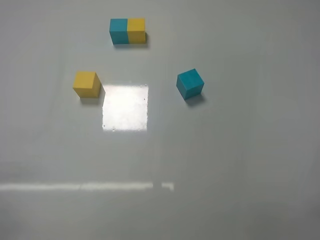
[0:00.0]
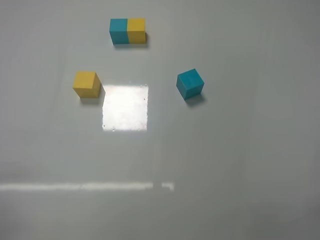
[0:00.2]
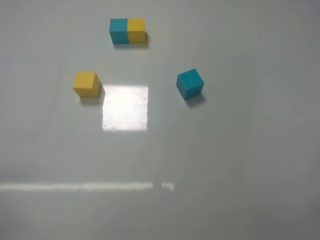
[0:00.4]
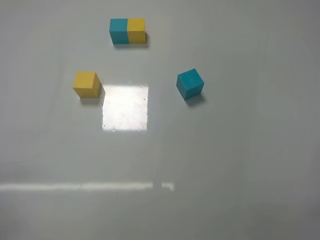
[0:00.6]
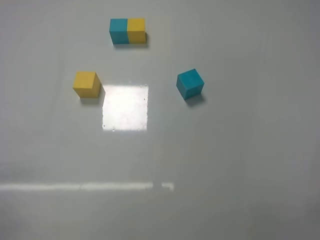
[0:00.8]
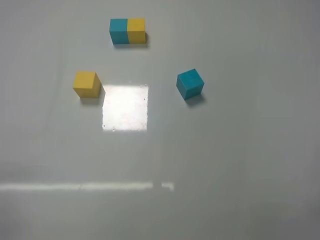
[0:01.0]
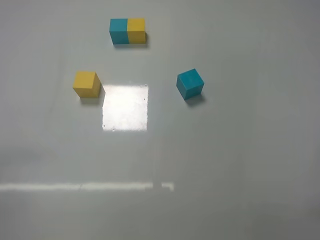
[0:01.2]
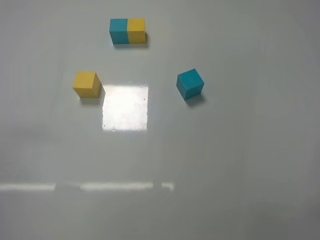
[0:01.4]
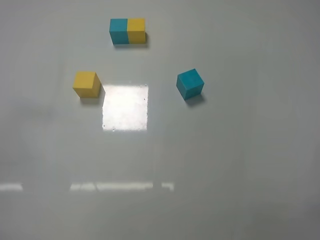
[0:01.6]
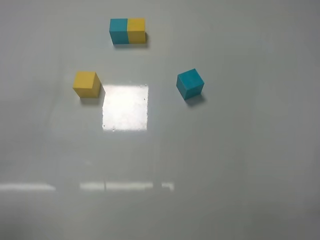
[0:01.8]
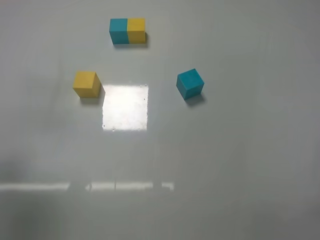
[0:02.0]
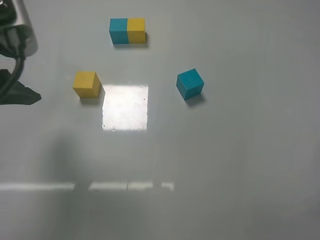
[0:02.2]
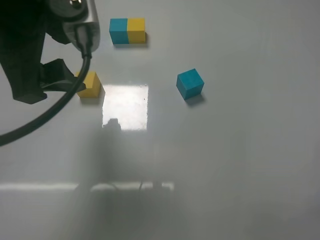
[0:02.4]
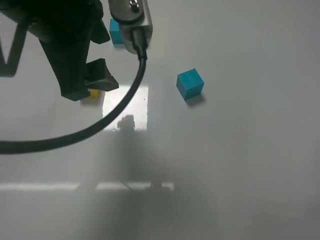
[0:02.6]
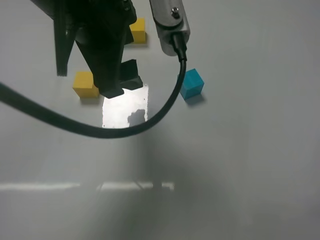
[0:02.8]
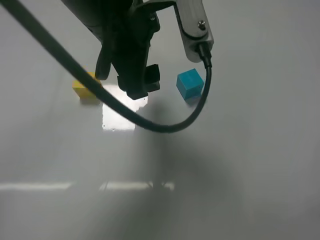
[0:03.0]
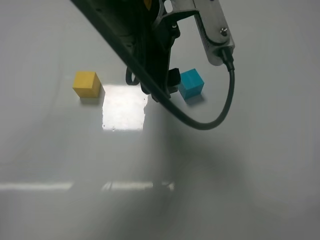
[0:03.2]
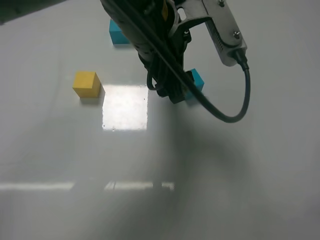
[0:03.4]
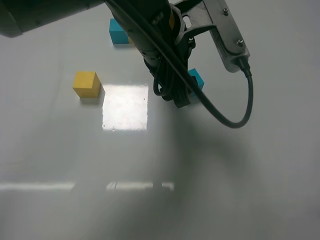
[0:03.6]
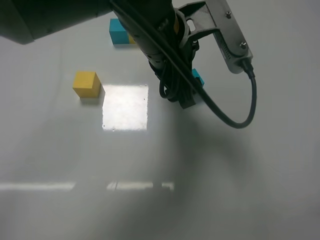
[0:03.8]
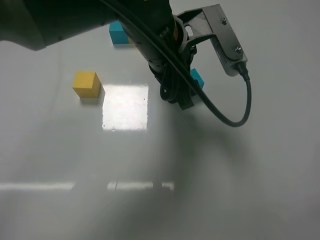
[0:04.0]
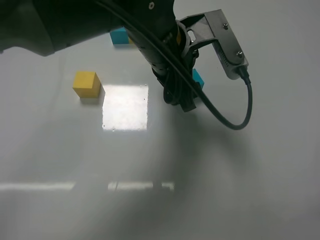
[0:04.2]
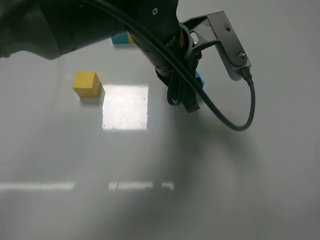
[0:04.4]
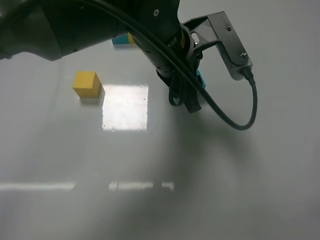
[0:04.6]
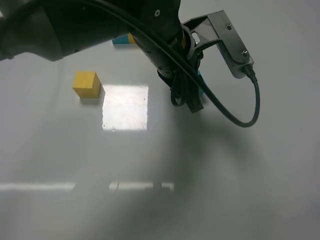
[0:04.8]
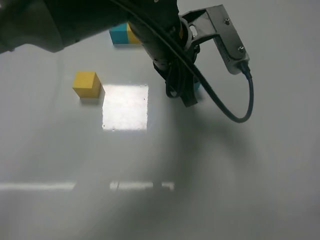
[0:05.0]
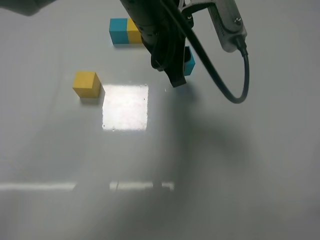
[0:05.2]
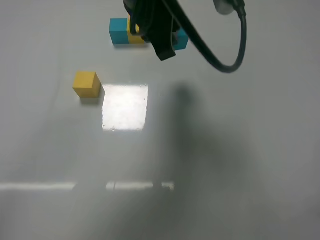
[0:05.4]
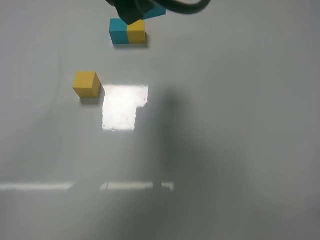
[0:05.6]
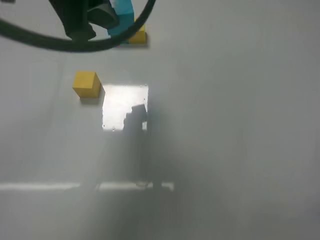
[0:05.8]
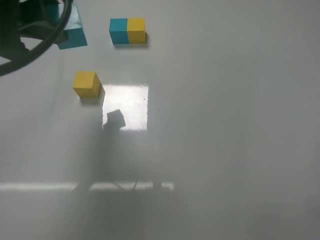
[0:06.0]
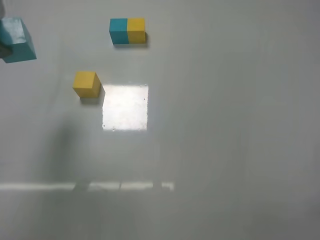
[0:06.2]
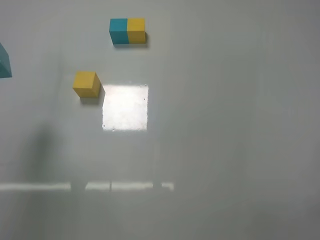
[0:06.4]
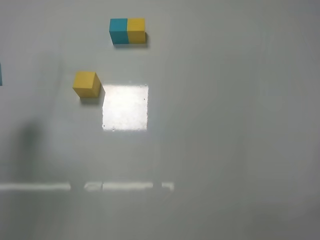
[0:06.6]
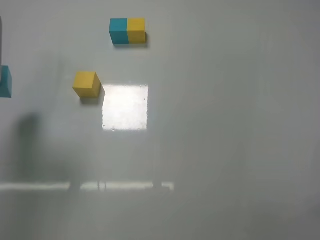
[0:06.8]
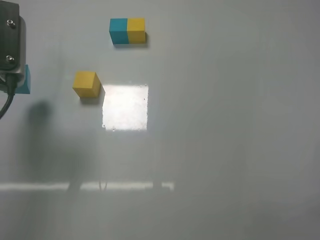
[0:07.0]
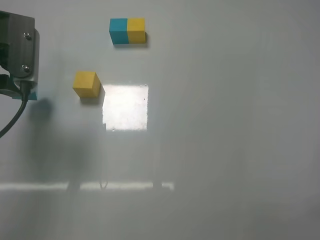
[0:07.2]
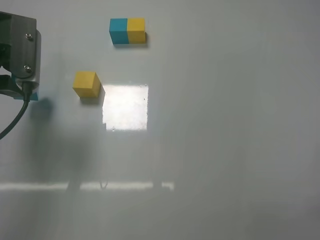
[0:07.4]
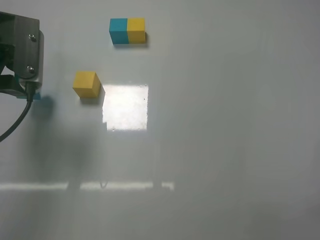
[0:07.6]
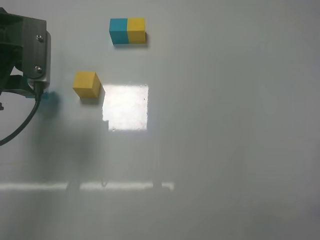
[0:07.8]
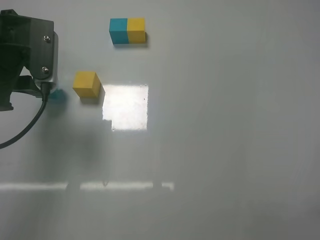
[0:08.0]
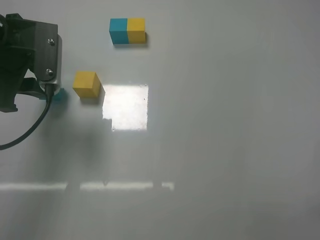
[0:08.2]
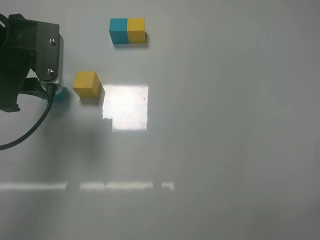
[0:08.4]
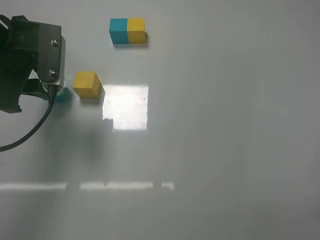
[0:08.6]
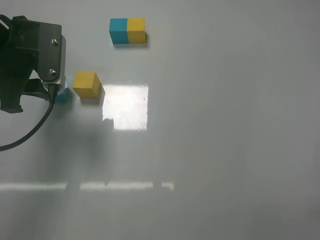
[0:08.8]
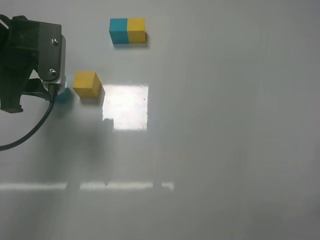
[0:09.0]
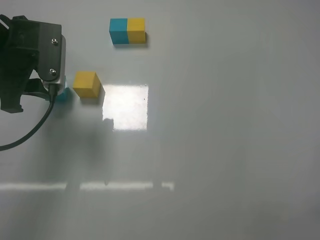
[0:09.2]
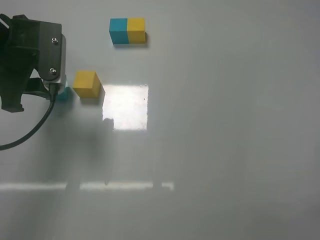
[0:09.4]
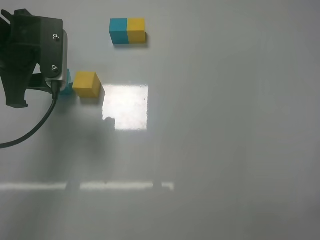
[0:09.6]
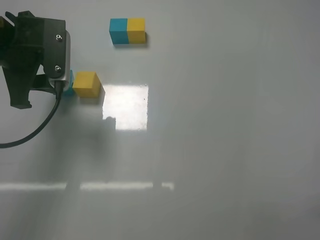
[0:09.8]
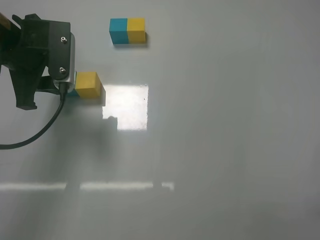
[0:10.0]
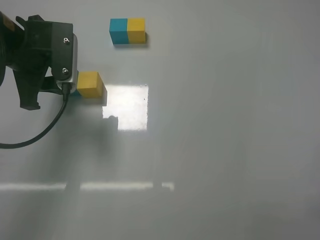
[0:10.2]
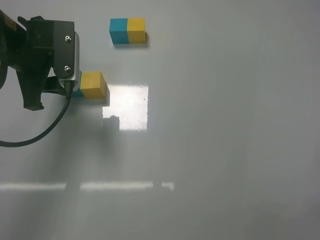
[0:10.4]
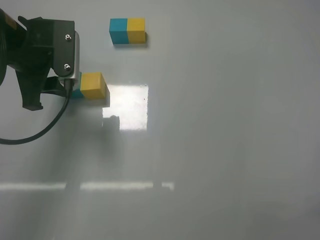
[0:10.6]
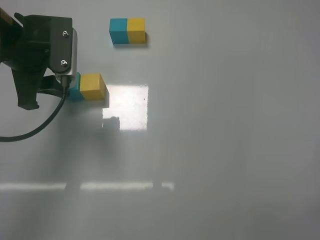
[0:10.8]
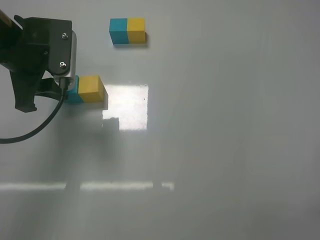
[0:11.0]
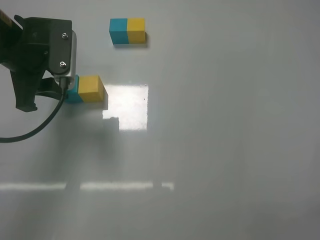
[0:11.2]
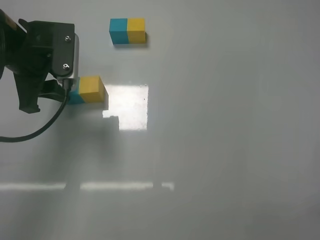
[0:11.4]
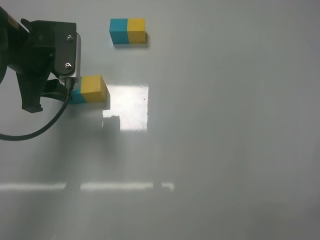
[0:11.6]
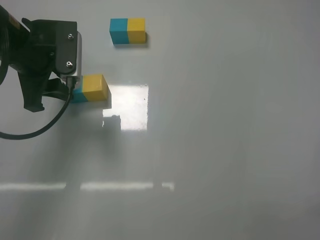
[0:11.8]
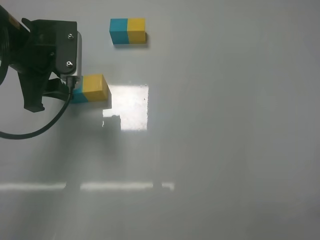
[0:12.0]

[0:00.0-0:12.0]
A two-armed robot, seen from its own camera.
Task of the whole recording: According to the building block template in front, assemble the scattered blocks together.
Step, 0:00.0 to 0:04.6: Grasp the blue block with left gripper.
0:01.6 to 0:03.0: The left gripper heads to the right and forward, covering roughly 35 cm.
0:03.0 to 0:04.4: The left gripper travels to the right, forward and downward by roughly 10 cm, and closes up.
0:04.4 to 0:06.0: The left gripper travels to the left, upward and backward by roughly 25 cm.
0:06.0 to 0:07.6: The left gripper is displaced forward, downward and to the left by some 15 cm.
0:07.6 to 0:12.0: The grippers move only a little.

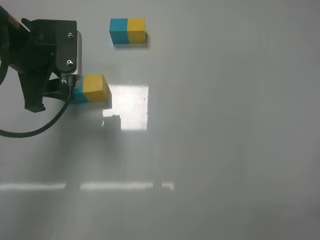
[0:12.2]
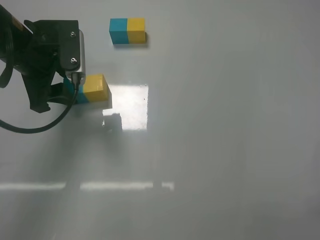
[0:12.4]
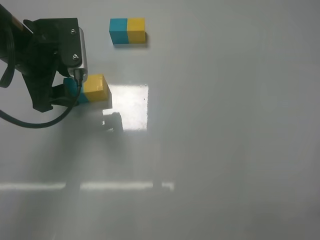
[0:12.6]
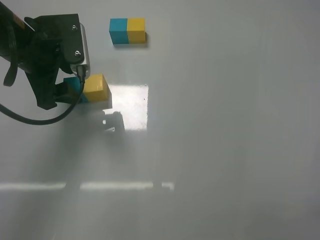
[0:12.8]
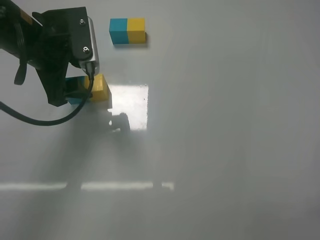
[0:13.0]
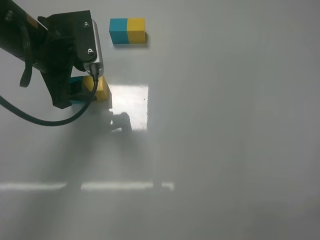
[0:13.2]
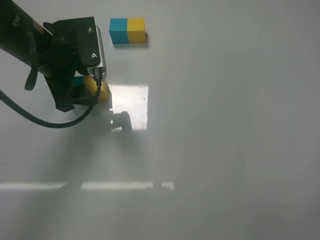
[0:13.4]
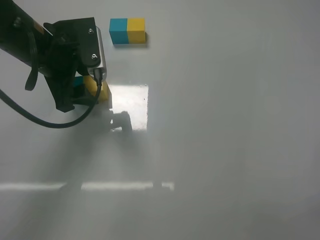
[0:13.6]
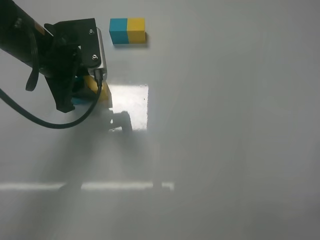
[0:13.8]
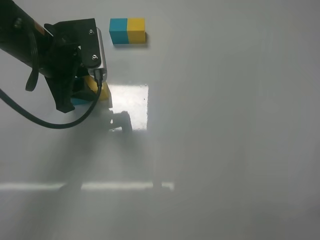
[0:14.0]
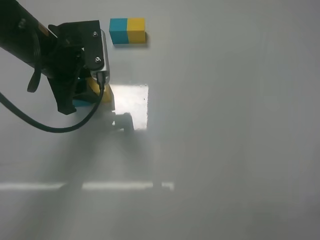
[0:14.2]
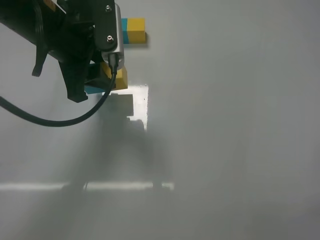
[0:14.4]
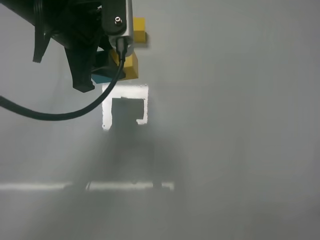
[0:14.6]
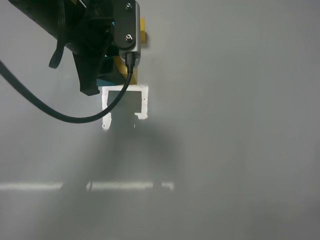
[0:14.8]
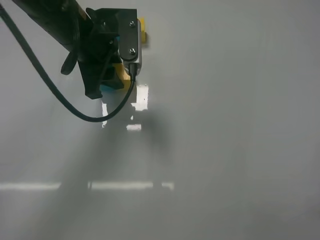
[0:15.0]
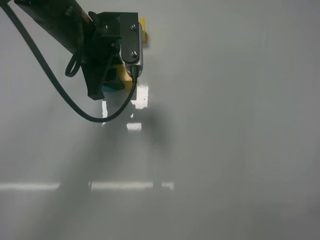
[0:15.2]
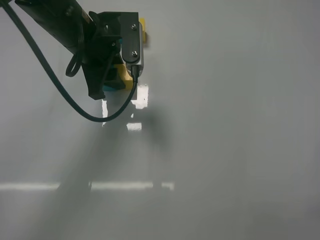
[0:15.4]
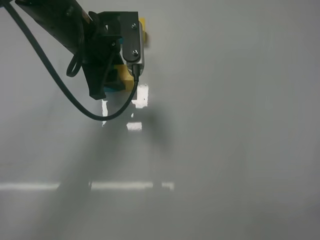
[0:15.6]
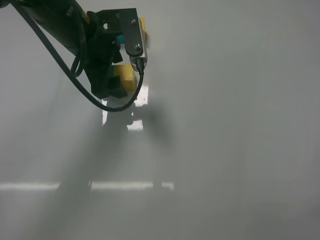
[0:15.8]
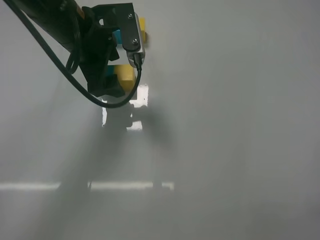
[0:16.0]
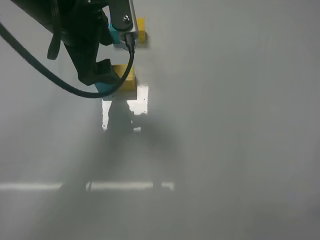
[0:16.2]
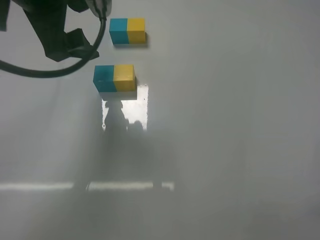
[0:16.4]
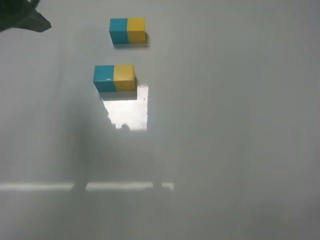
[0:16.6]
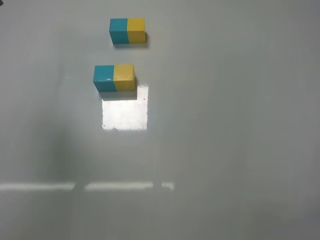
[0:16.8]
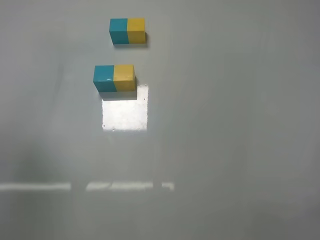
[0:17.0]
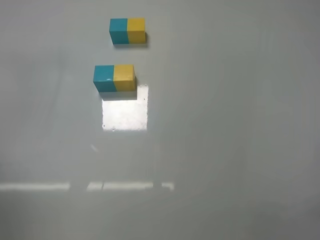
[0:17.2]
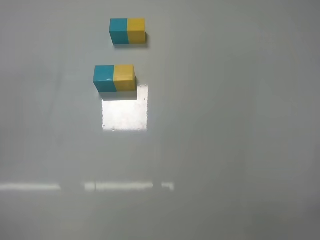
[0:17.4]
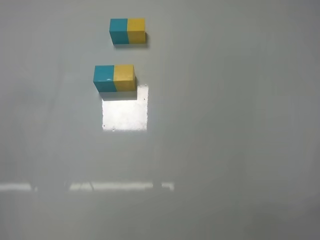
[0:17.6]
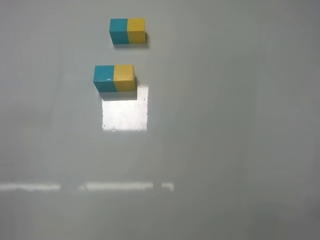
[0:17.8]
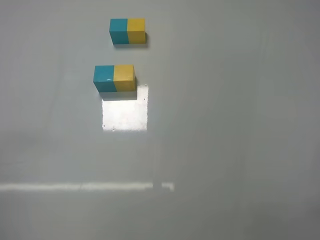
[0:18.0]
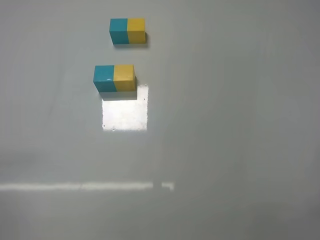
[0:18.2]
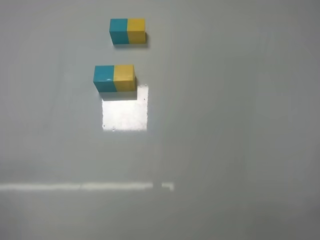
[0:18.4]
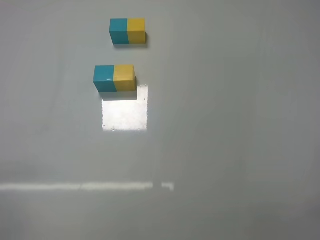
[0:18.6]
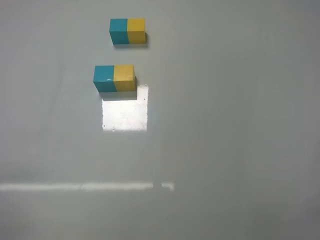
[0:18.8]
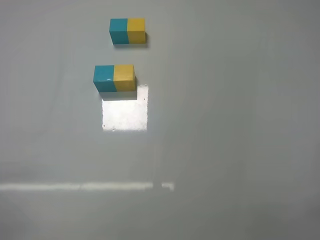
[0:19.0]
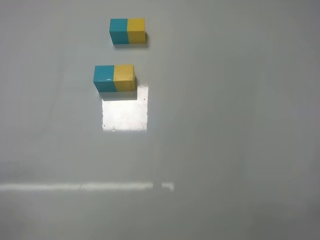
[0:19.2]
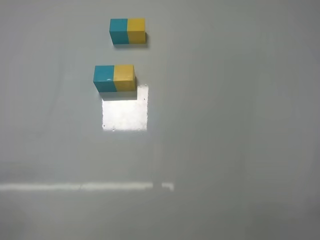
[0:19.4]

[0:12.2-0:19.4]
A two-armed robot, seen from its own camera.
Task of the whole recording: According to the building block template in front, assemble the scattered blocks together.
Step, 0:12.8 to 0:15.8: Put the yellow cube and blue cube in the center of the table with the left gripper.
0:12.2 to 0:13.6: The left gripper opens its fingers.
0:13.6 to 0:15.0: The left gripper moves to the right, some 5 cm, and closes up.
0:15.0 to 0:16.6: The left gripper moves upward, backward and to the left, about 20 cm, and opens its fingers.
0:16.6 to 0:18.0: The left gripper is displaced backward, downward and to the left by roughly 30 cm.

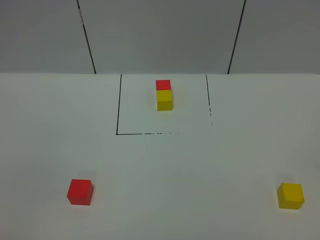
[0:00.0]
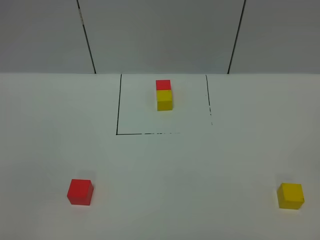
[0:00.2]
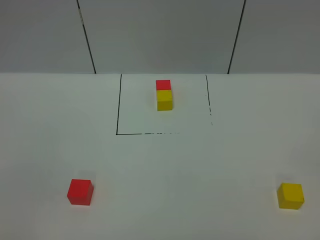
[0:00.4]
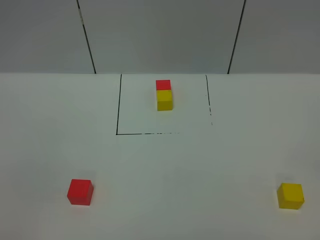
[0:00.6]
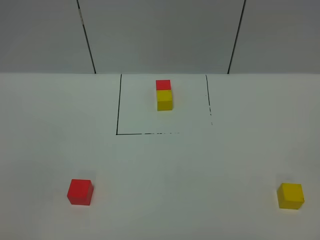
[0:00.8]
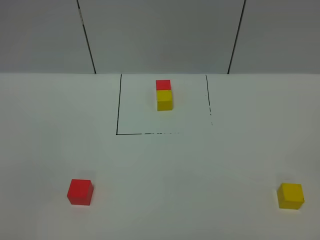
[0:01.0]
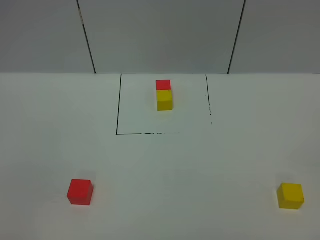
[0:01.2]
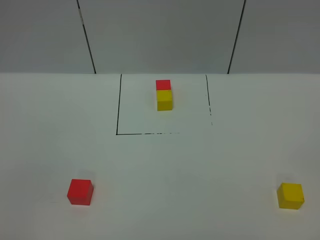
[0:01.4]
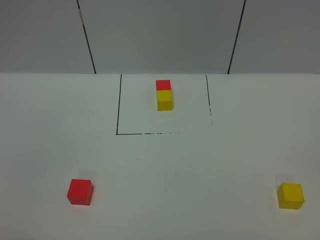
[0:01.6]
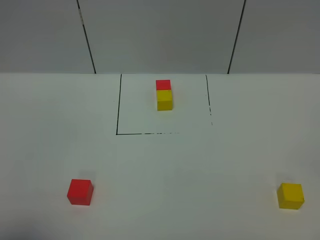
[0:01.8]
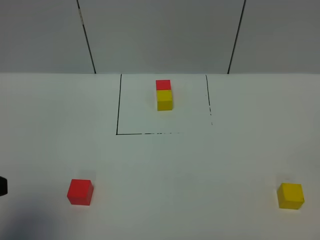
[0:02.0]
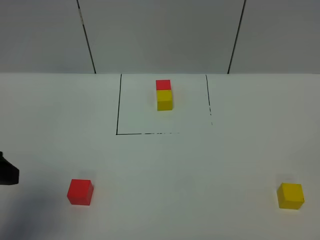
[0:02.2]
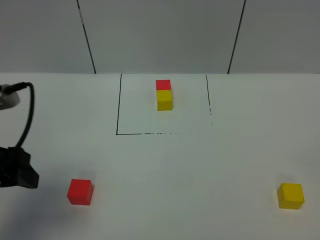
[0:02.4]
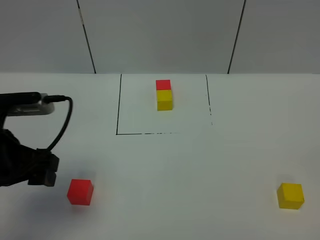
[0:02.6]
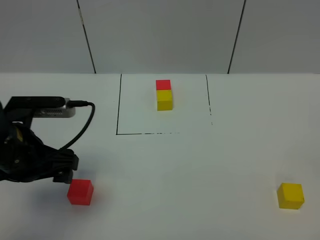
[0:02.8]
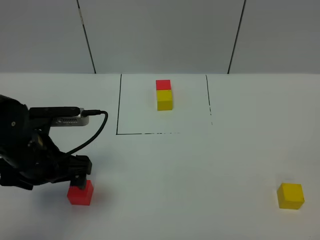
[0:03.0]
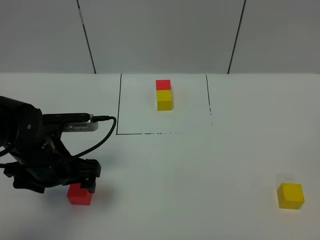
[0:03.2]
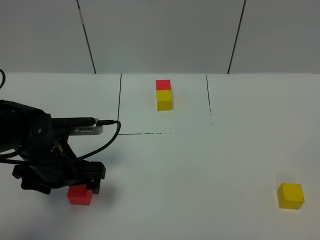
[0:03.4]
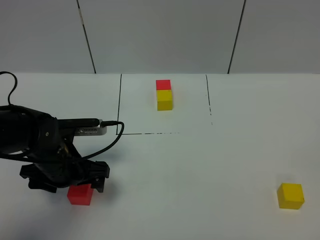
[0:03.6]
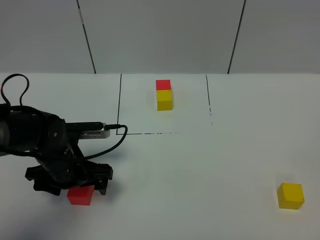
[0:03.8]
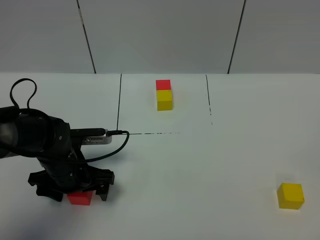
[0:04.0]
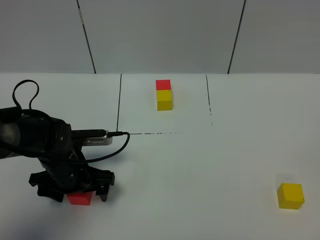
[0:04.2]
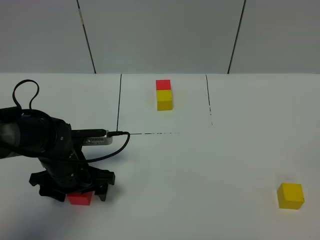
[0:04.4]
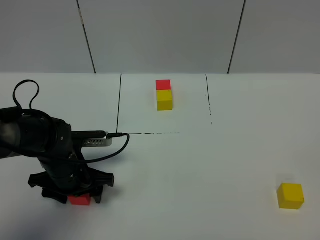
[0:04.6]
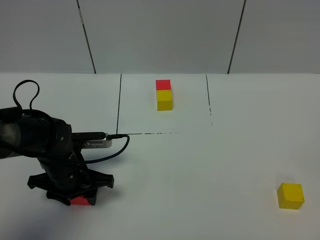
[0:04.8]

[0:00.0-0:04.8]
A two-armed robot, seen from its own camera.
Task of the whole recording: According to the building block template in front, assemble the scattered blocks together.
0:01.6 to 0:03.2: The left gripper moves forward and downward, about 25 cm, and opens its fingers.
0:03.2 to 0:04.8: The left gripper is displaced downward by approximately 5 cm, and closes up.
